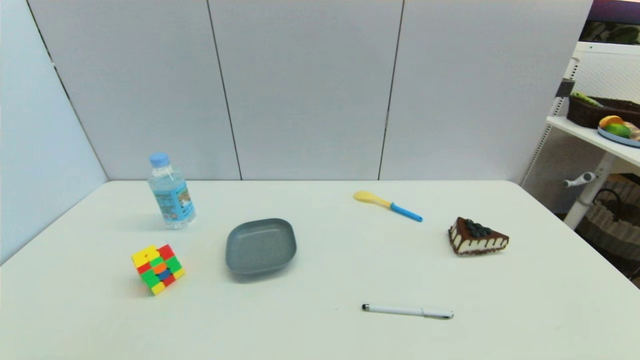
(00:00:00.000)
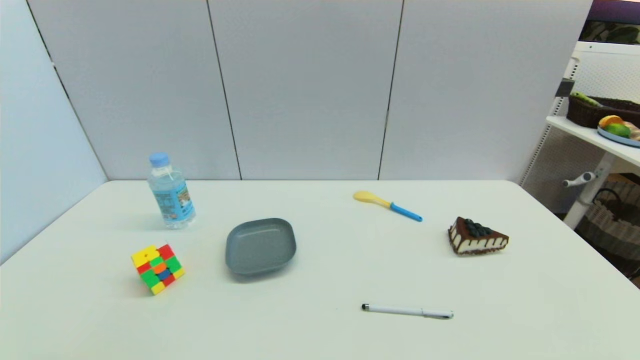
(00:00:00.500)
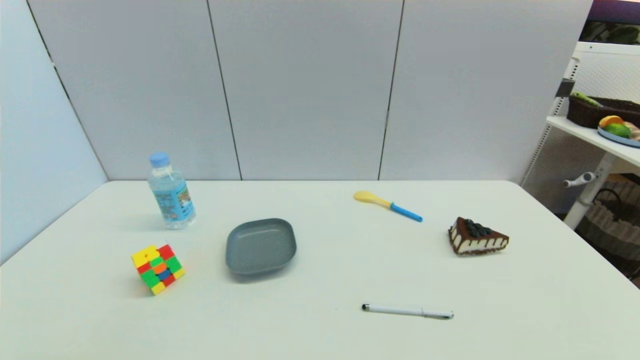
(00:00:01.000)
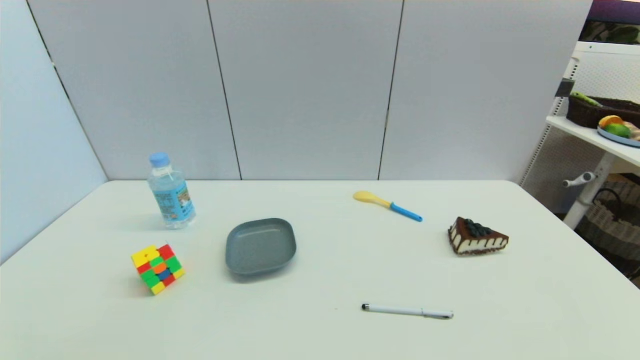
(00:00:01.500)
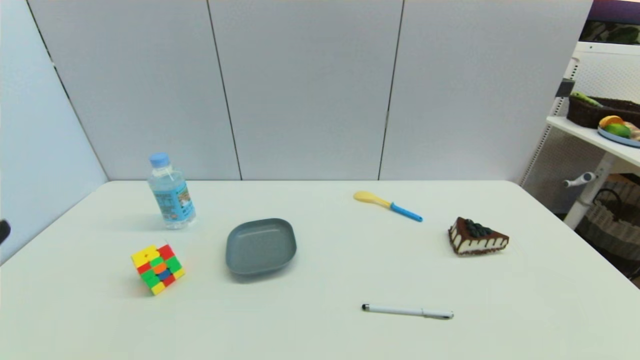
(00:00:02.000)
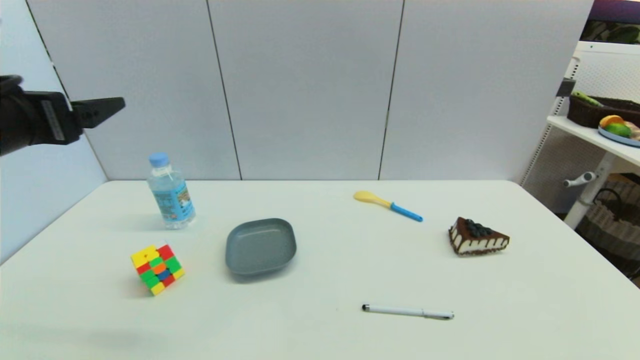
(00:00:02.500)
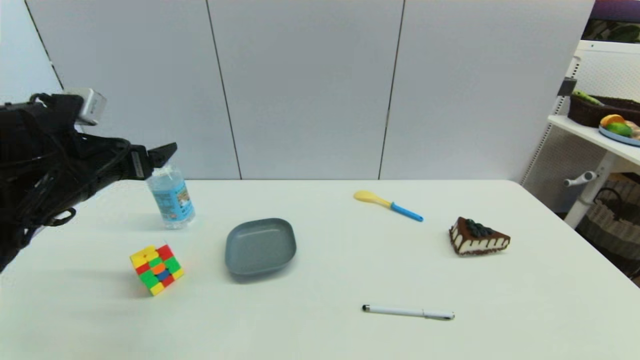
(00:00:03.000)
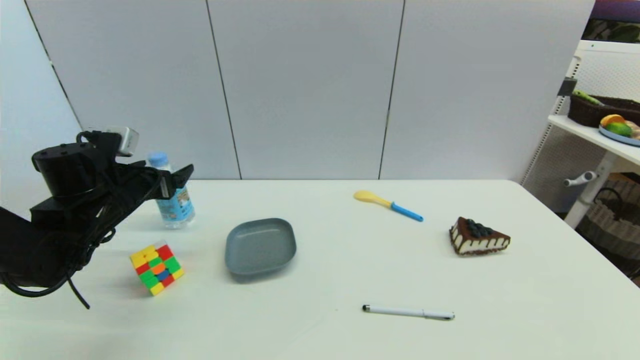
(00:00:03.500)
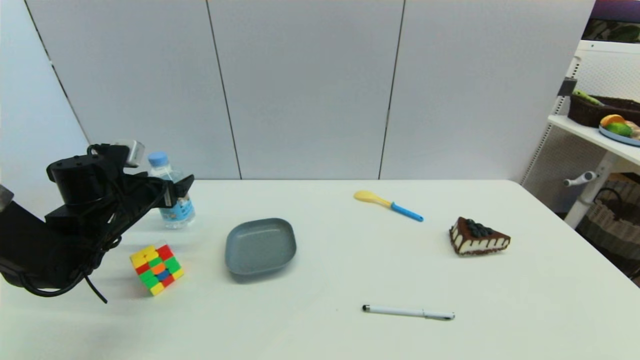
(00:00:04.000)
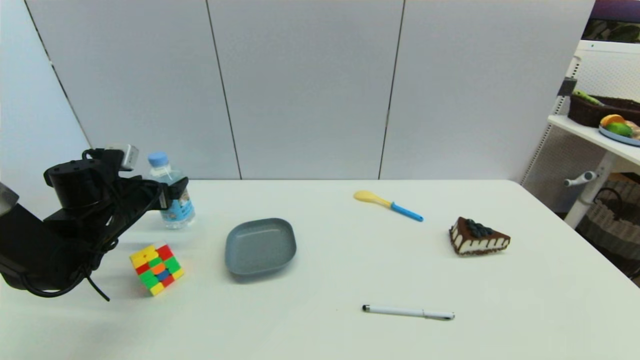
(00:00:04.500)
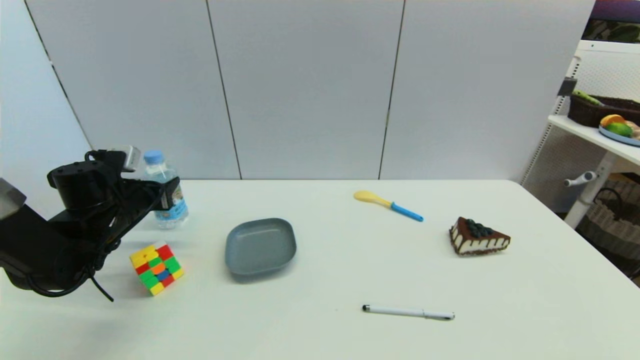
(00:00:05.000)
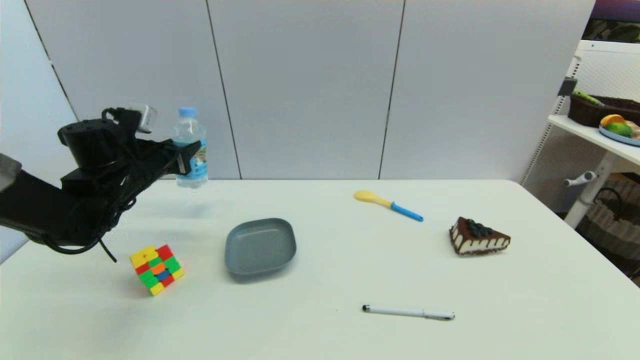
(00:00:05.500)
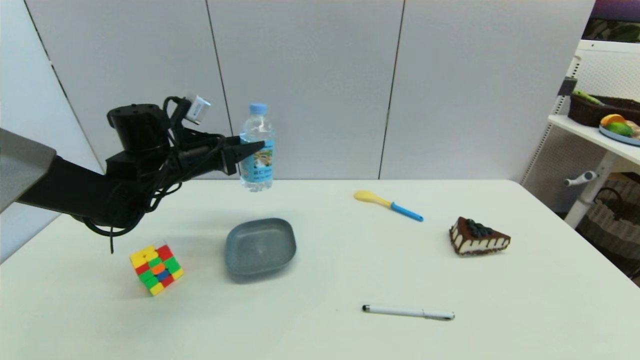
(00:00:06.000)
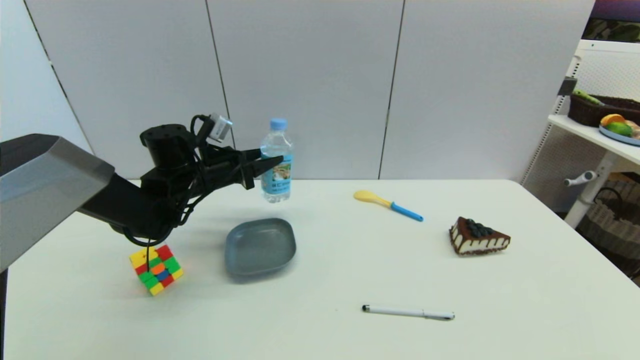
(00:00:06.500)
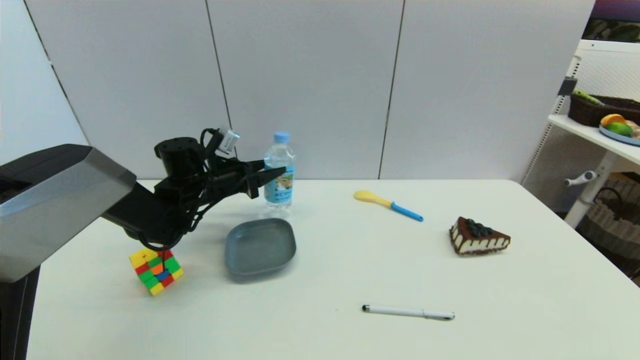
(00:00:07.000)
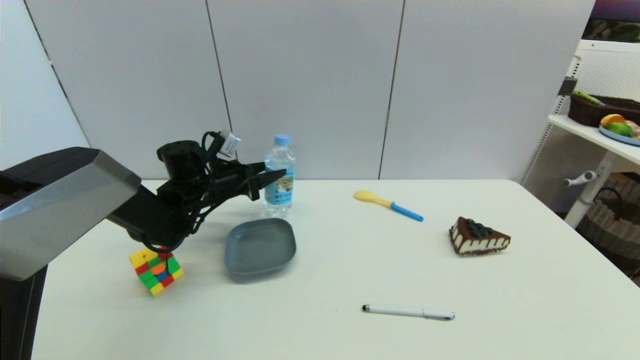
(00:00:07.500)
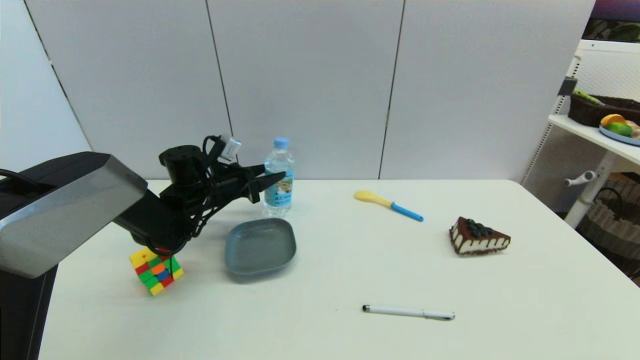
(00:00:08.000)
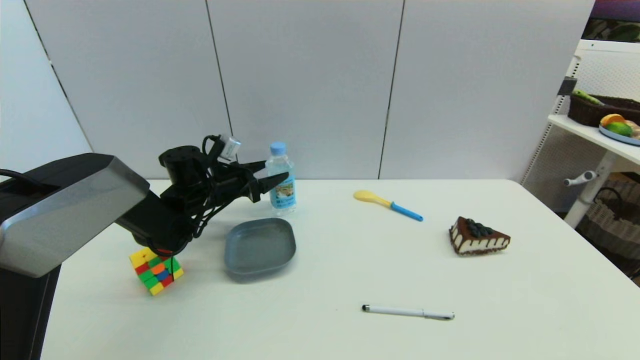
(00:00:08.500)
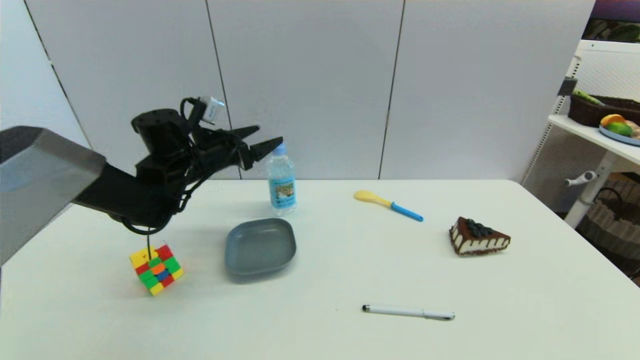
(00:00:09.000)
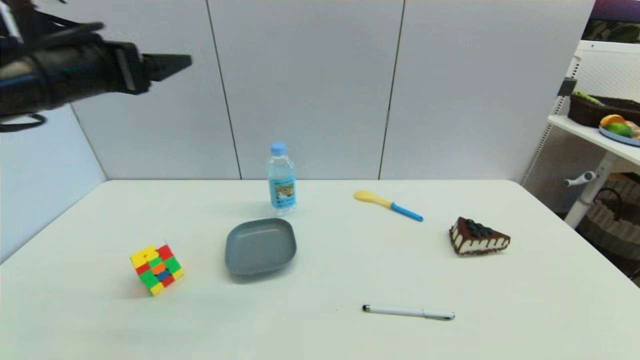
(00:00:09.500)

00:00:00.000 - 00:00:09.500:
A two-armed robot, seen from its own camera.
Step, 00:00:01.500 - 00:00:05.000: Grasp the soda water with left gripper.
Step, 00:00:05.500 - 00:00:08.000: Place the soda water on the table with left gripper.
00:00:02.000 - 00:00:04.000: The left gripper moves forward and downward, approximately 30 cm.
00:00:04.000 - 00:00:05.500: The left gripper ends up some 5 cm from where it was, and closes up.
00:00:05.500 - 00:00:07.500: The left gripper moves to the right and downward, approximately 10 cm.
00:00:07.500 - 00:00:09.500: The left gripper moves upward and backward, roughly 30 cm, and opens up.

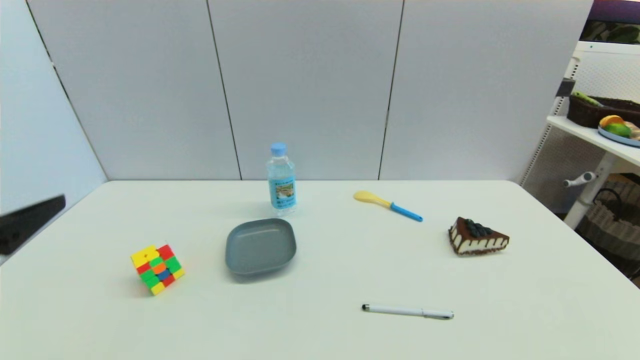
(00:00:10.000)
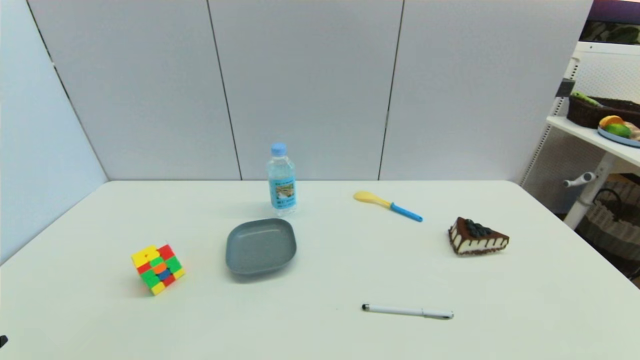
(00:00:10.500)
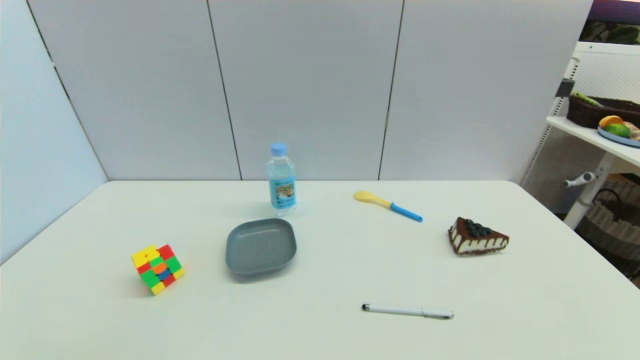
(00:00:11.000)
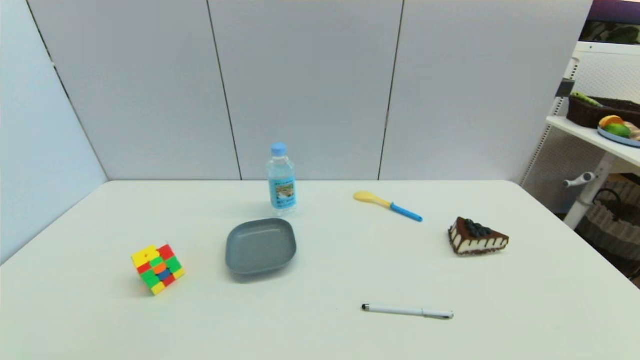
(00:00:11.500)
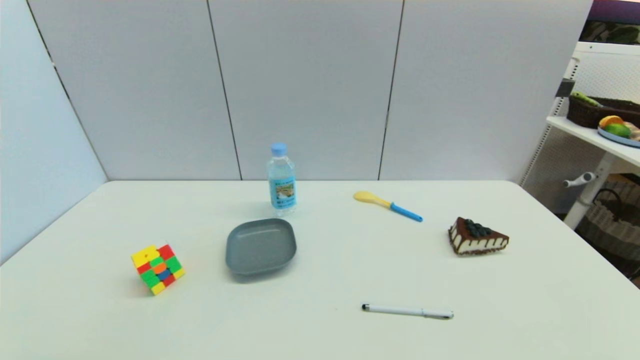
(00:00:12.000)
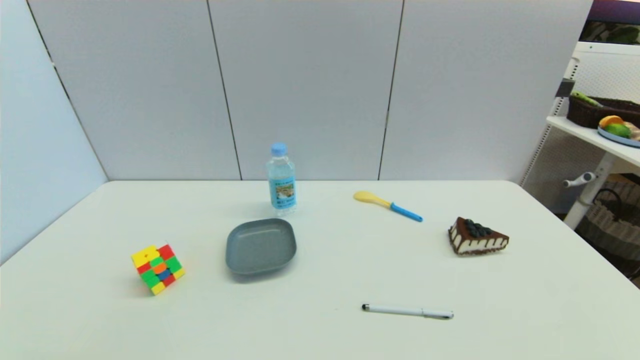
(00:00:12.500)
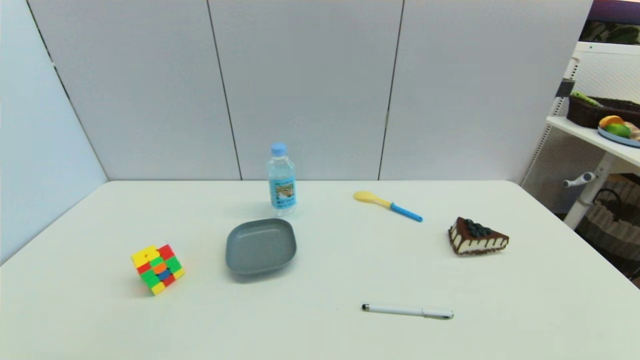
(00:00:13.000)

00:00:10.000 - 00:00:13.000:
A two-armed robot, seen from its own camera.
00:00:10.000 - 00:00:11.500: The left gripper travels downward and backward by approximately 20 cm.
00:00:11.500 - 00:00:13.000: Both grippers stay about where they are.
